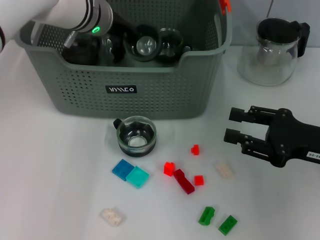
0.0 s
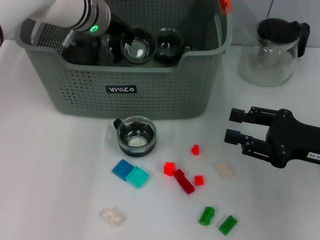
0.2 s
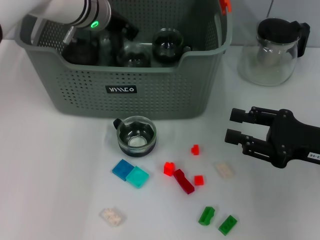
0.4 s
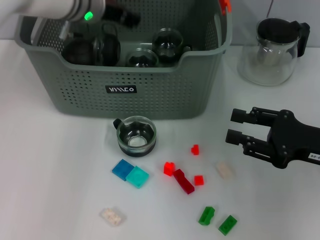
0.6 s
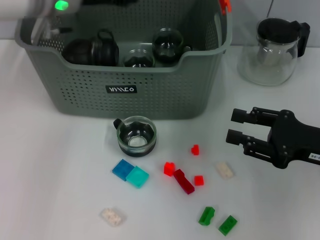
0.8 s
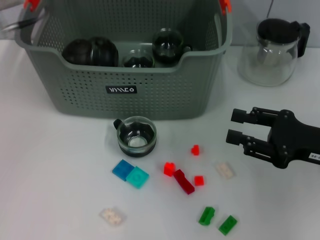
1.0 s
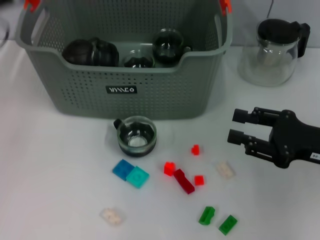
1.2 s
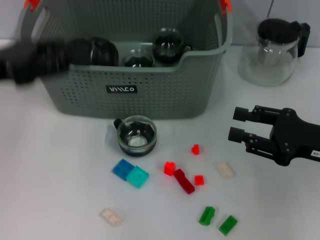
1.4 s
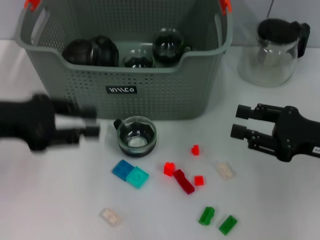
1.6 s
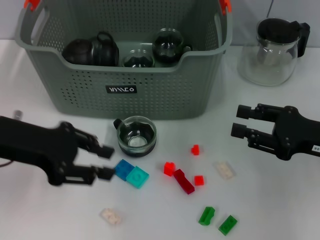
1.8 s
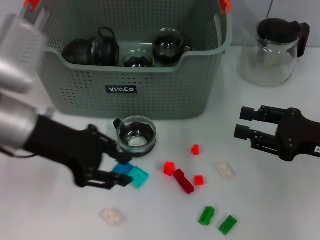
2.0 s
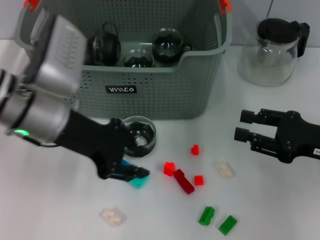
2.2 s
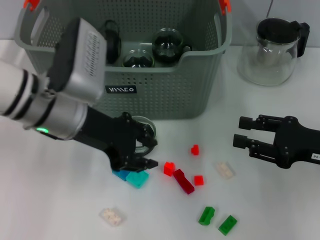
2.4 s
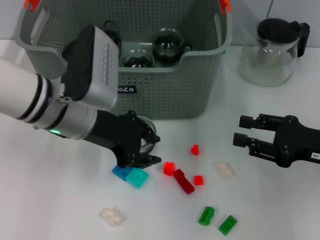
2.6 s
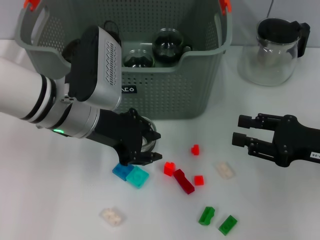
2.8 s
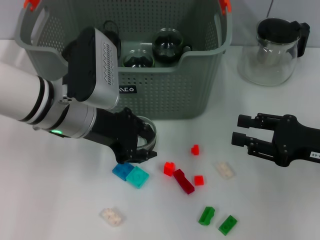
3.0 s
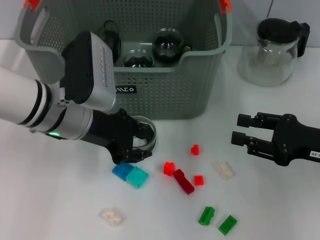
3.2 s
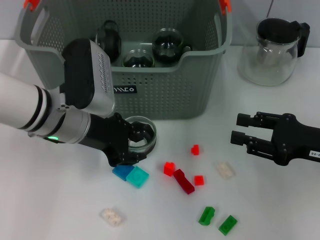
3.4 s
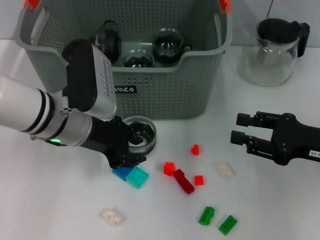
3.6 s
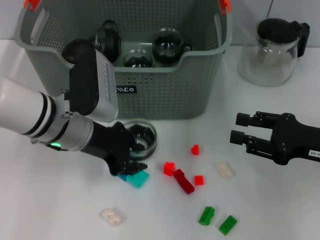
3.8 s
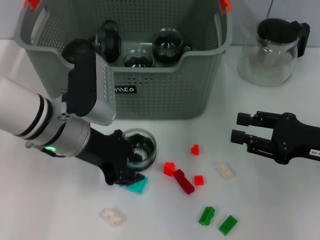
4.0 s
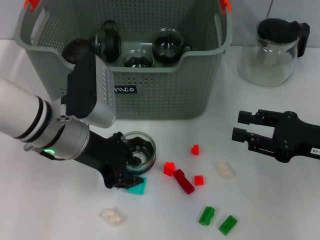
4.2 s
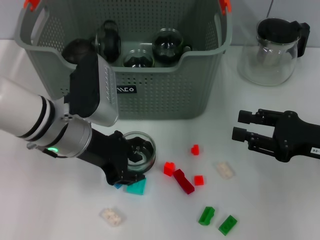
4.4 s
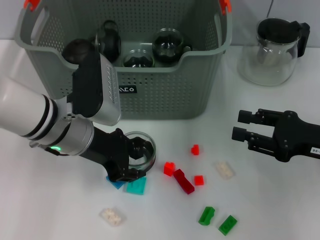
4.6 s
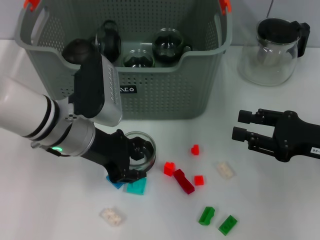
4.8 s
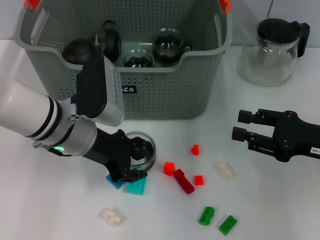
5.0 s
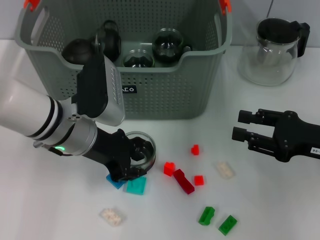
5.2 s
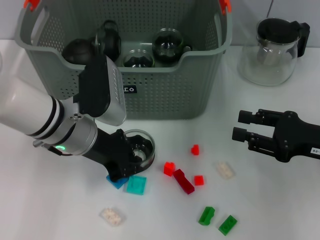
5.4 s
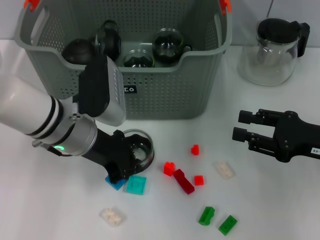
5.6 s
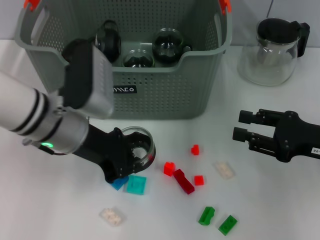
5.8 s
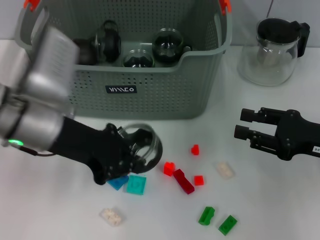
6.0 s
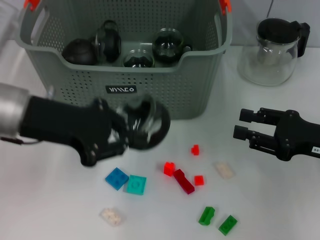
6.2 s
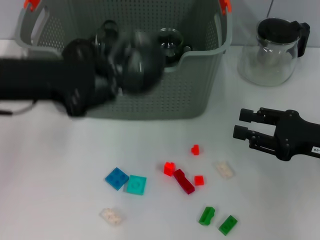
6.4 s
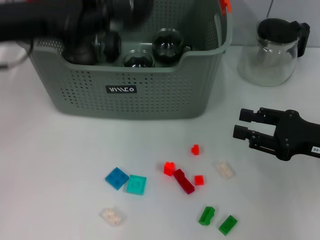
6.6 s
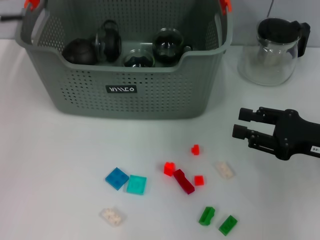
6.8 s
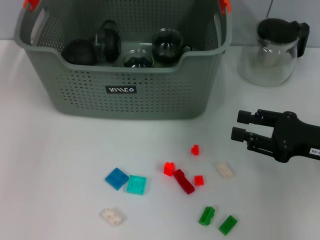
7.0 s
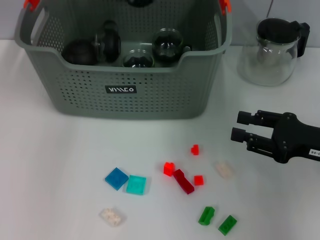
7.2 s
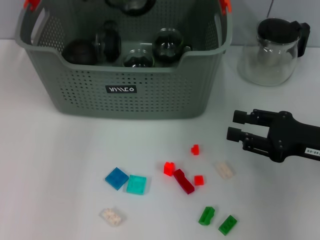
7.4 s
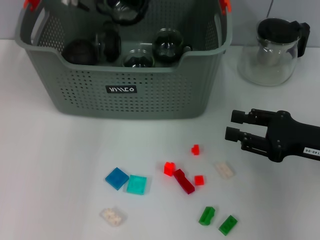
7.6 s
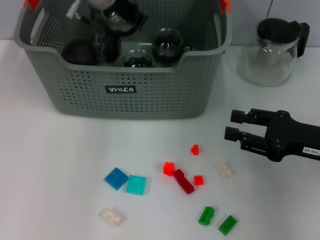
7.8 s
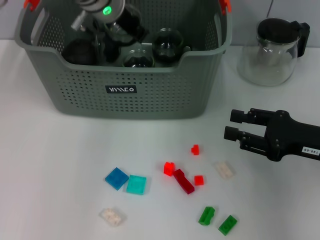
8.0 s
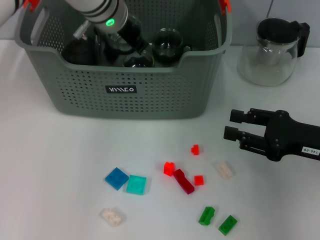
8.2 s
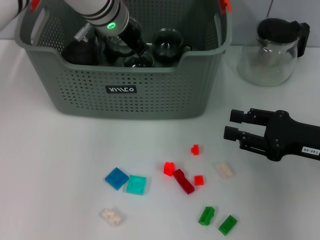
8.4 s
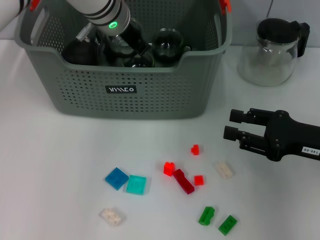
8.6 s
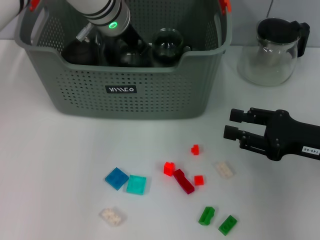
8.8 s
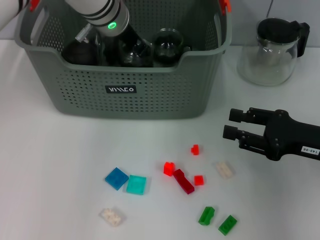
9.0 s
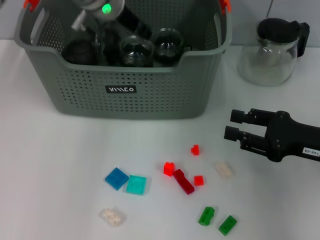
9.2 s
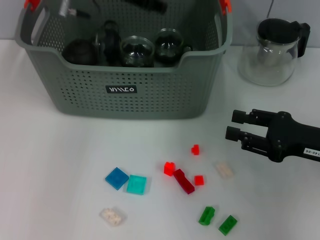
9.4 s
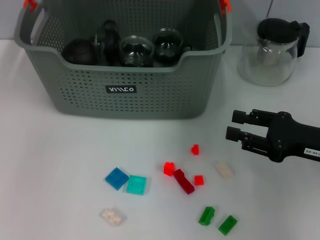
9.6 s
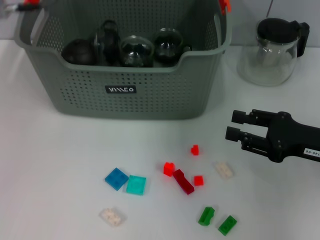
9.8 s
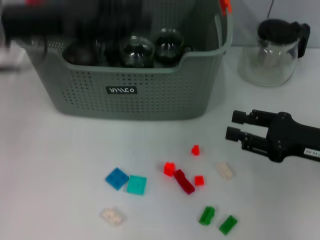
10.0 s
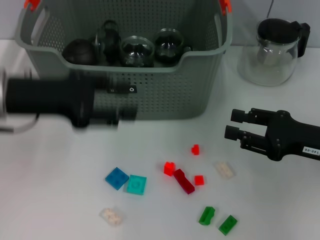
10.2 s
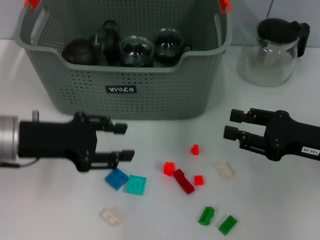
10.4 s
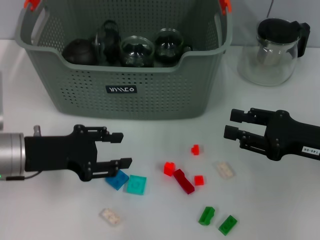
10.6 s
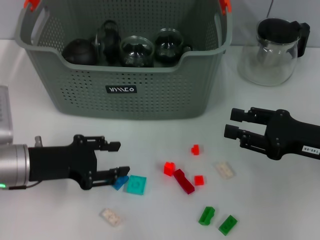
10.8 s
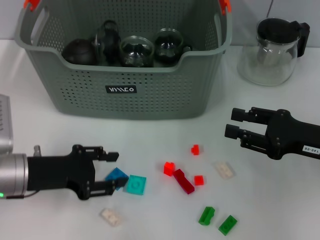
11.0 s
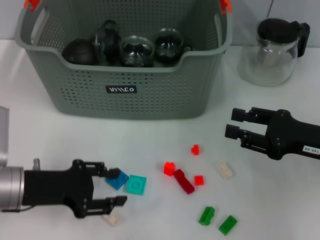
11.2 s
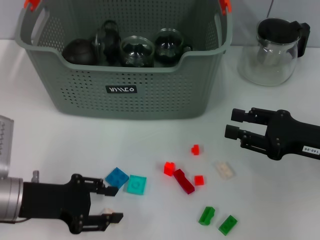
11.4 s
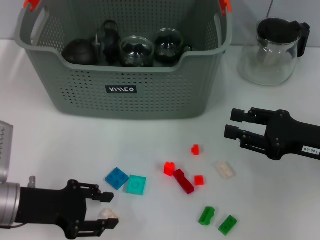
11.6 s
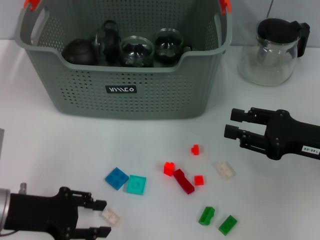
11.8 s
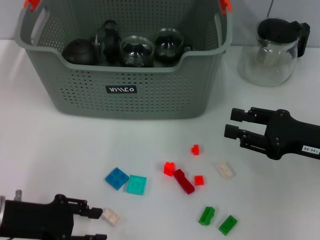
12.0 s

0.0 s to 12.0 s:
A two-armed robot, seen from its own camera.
Task of the whole recording: pick up the teacup on the table and place it into the storage bin, pick up the block on the table and place it into the storage bin.
Step, 0.8 to 5.4 s: Grasp the cup with left gripper.
Step, 5.8 to 9.2 s: Place the cup in the storage box with left gripper.
0.0 to 1.6 s: The left gripper moves backward and to the left, roughly 25 cm, and opens up.
1.6 to 3.0 s: The left gripper is displaced to the right by some 15 cm.
3.0 to 4.4 s: The grippers make only small movements.
4.4 to 6.0 s: The left gripper ends up some 5 cm from where it was, and closes up.
6.0 to 7.6 s: The left gripper moves forward, upward and to the right, some 20 cm.
7.6 to 9.0 s: The left gripper moves downward, some 5 cm.
9.0 to 10.4 s: The left gripper travels backward and to the left by approximately 25 cm, and opens up.
10.4 to 12.0 s: The left gripper travels downward and backward by approximately 10 cm.

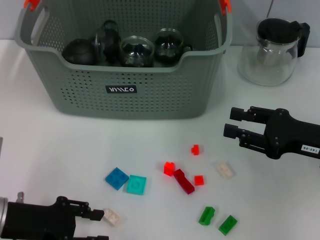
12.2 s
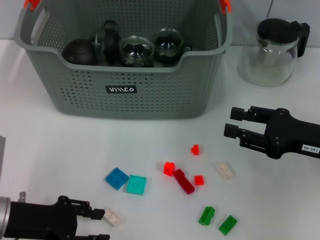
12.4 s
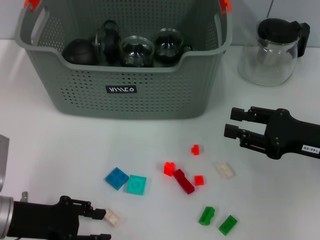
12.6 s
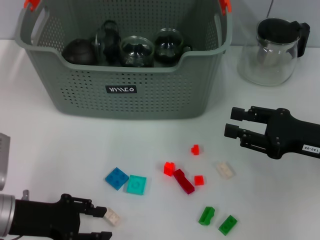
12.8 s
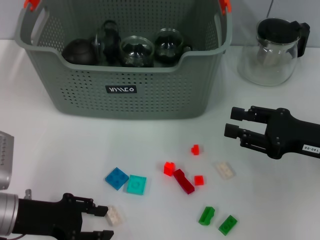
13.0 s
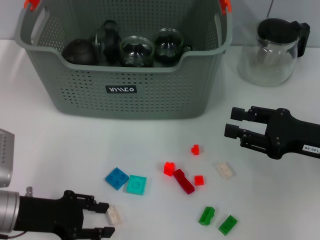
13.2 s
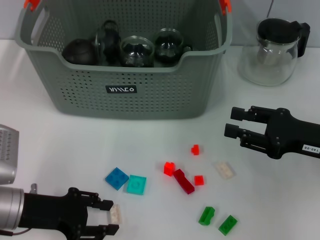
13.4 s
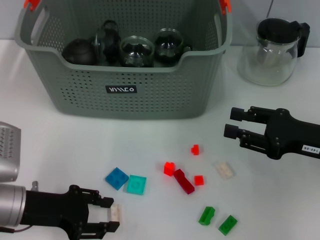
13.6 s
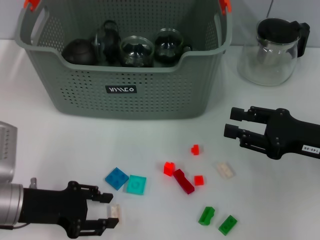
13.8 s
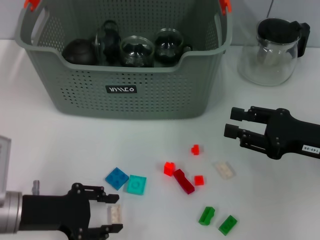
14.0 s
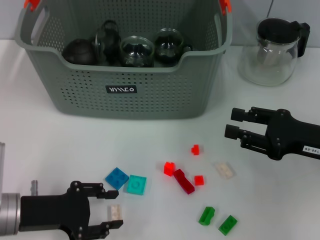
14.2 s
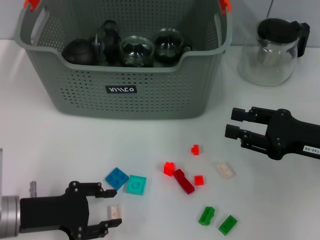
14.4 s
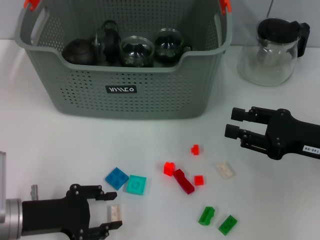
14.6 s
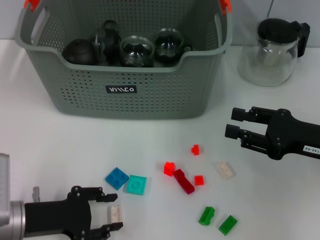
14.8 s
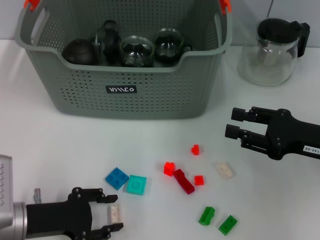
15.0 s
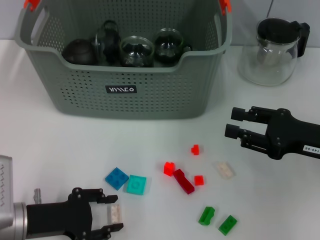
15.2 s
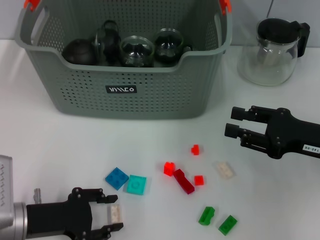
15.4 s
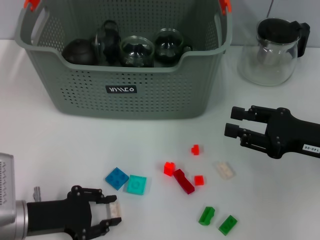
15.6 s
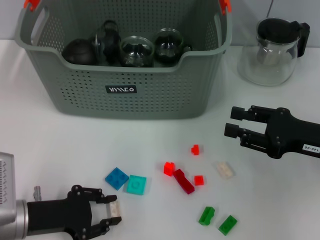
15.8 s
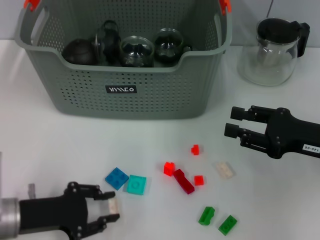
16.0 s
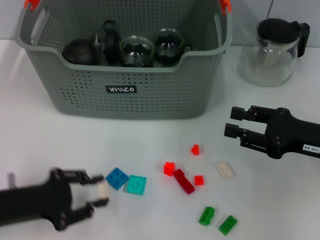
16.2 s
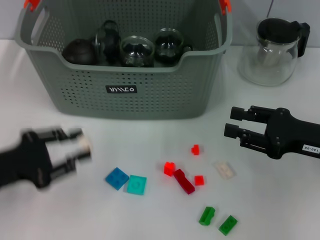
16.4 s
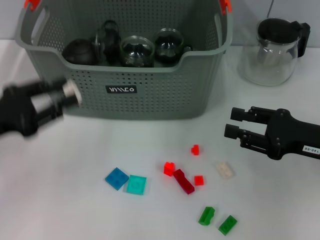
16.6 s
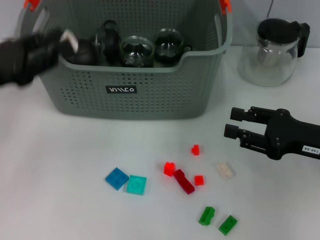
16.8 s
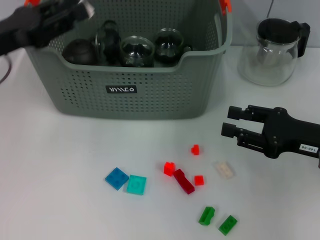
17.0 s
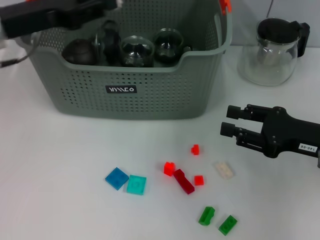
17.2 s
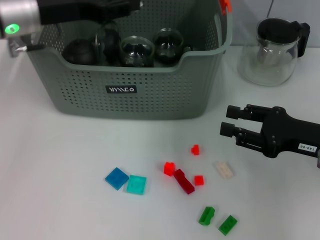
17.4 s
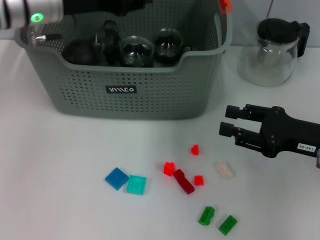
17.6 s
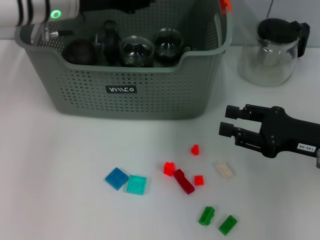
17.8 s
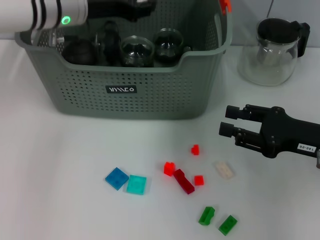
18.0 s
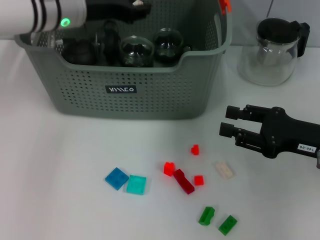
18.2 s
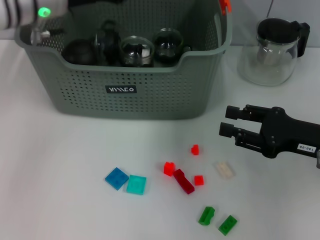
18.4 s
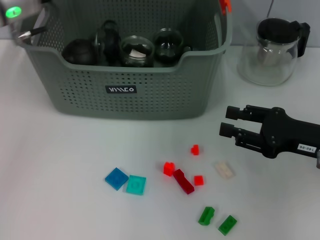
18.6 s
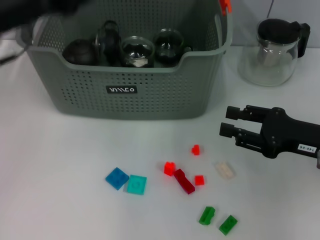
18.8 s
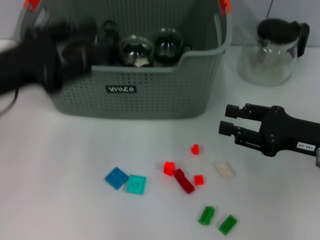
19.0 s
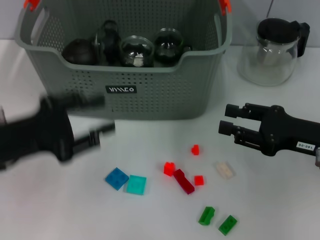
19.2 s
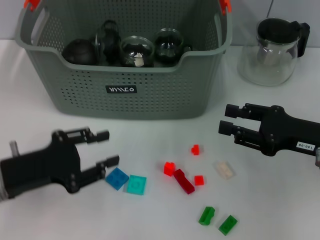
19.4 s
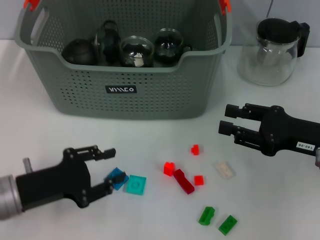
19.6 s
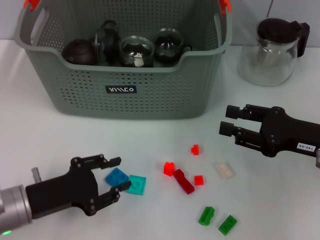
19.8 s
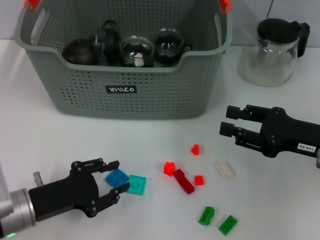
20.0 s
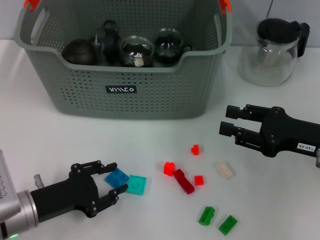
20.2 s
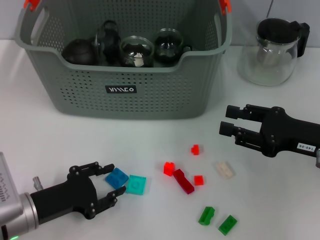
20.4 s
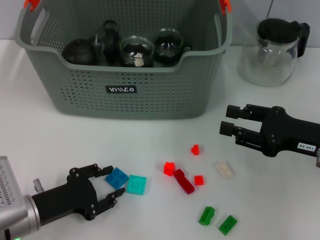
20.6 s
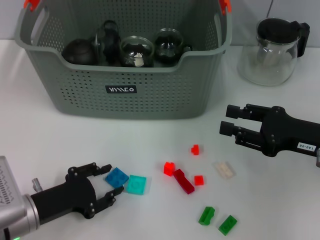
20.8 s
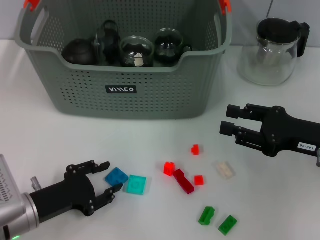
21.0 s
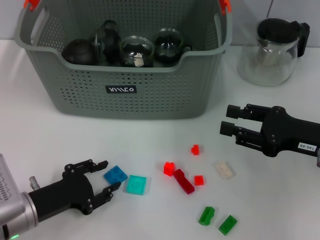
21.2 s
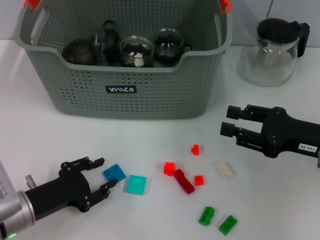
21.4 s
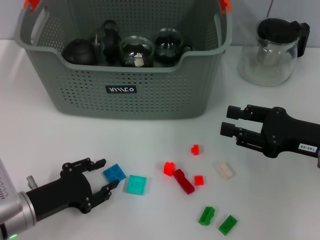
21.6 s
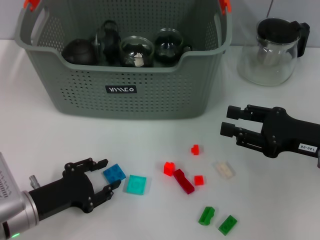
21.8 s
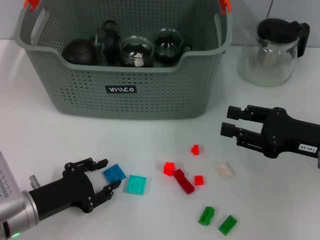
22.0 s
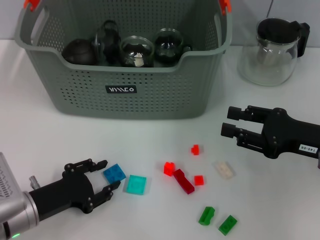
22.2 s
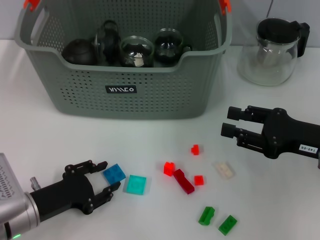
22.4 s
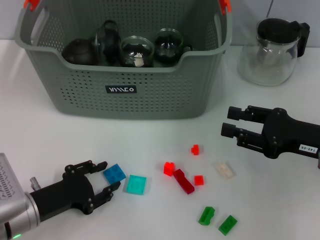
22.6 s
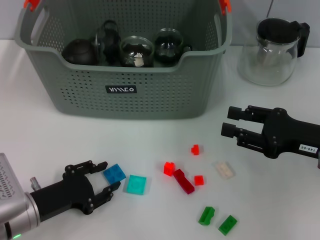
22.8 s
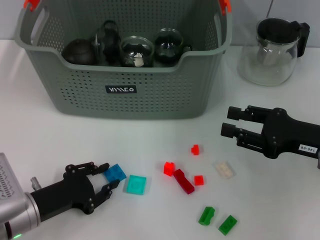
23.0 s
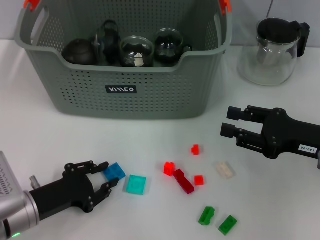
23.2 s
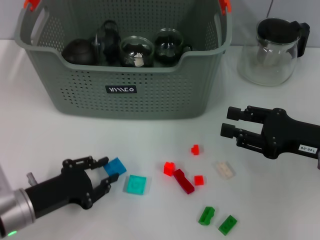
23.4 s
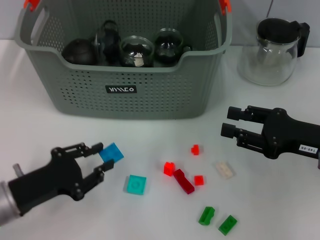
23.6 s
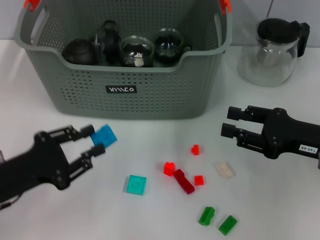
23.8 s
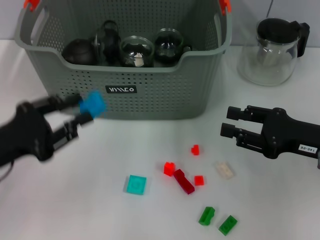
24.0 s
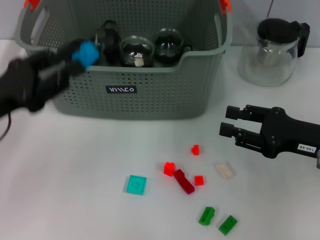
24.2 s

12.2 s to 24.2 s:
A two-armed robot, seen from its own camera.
Task of the whole recording: pick up the teacup on the table and place it into the storage bin, pick up the block on the table and place it into the storage bin.
Step, 12.2 to 15.8 s: Grasp the white block with left gripper.
Step, 16.0 to 18.2 s: Place the white block in the storage box with left gripper.
Step, 18.6 to 23.2 s: Grasp the dark blue block with left gripper.
12.2 to 13.8 s: There are only small adjustments of the grippers.
13.8 to 15.2 s: The grippers move only a little.
15.2 to 16.6 s: The left gripper goes roughly 10 cm upward and to the left.
16.6 to 18.2 s: The left gripper heads forward and to the right, covering roughly 25 cm.
18.2 to 19.8 s: The left gripper moves backward and downward, roughly 30 cm.
19.8 to 21.2 s: There are only small adjustments of the grippers.
21.2 to 22.6 s: Both grippers stay about where they are.
22.6 to 24.2 s: The left gripper goes some 15 cm upward.
